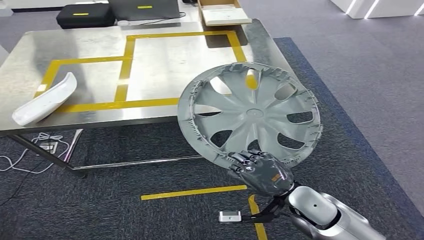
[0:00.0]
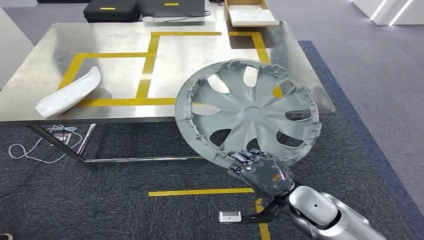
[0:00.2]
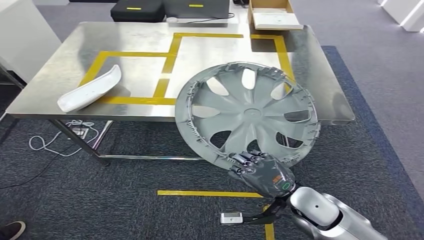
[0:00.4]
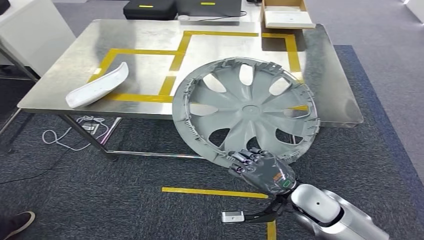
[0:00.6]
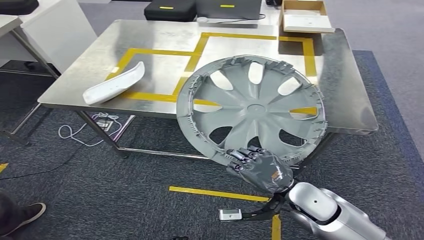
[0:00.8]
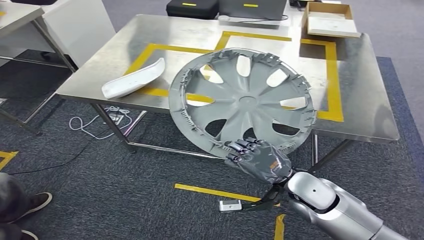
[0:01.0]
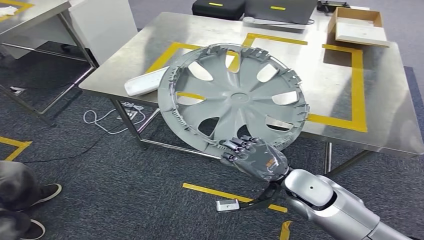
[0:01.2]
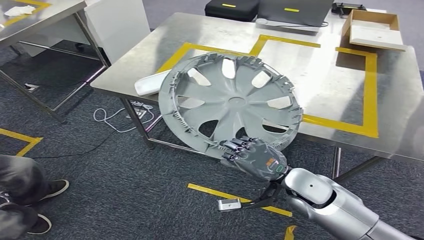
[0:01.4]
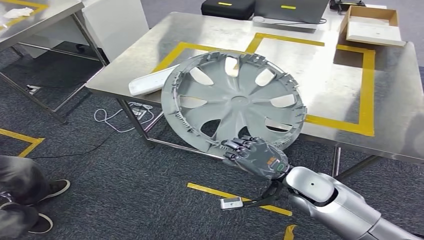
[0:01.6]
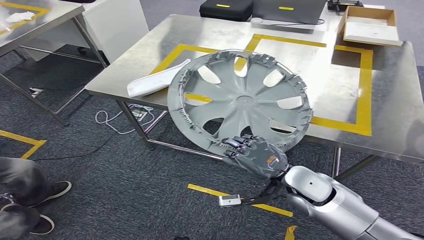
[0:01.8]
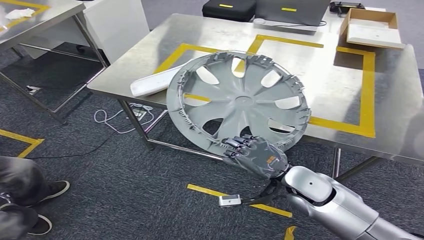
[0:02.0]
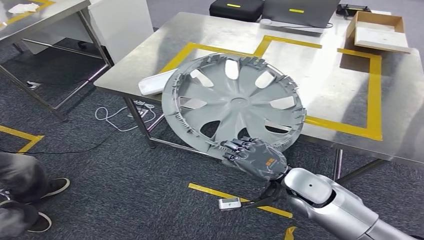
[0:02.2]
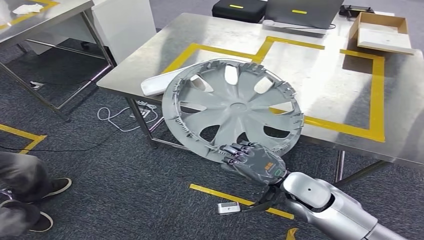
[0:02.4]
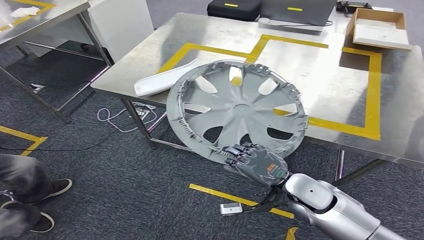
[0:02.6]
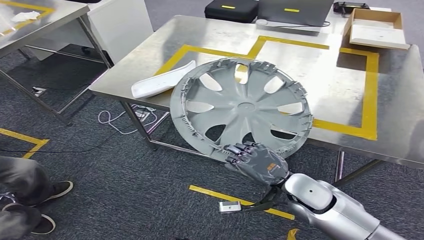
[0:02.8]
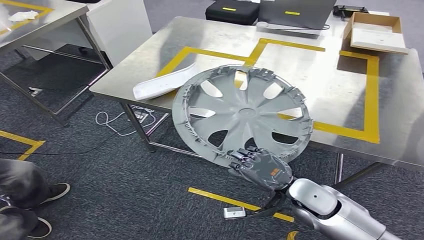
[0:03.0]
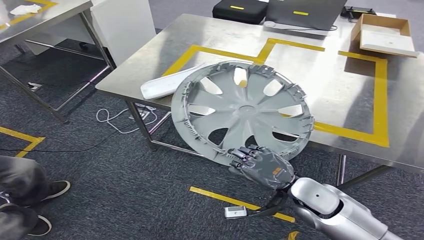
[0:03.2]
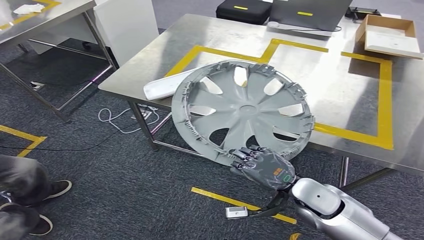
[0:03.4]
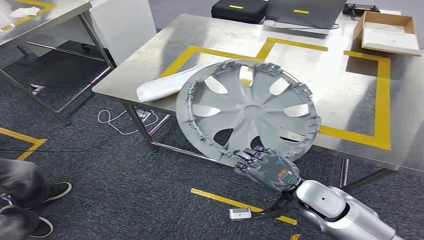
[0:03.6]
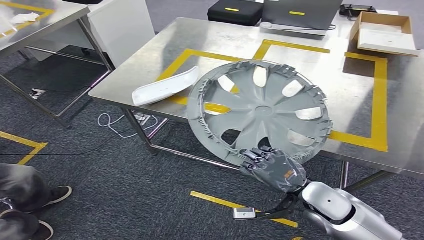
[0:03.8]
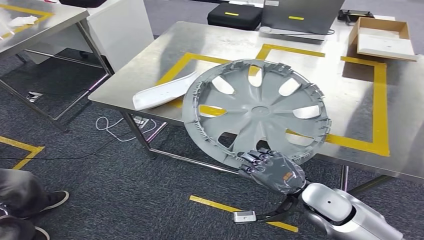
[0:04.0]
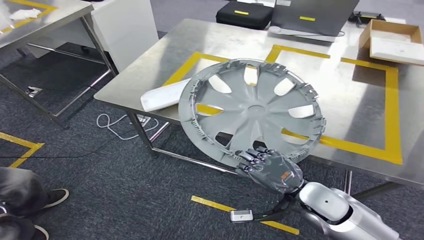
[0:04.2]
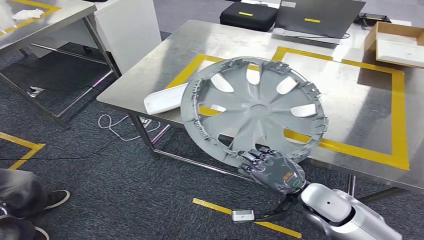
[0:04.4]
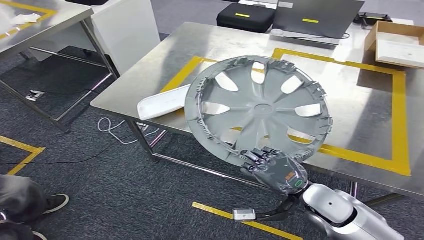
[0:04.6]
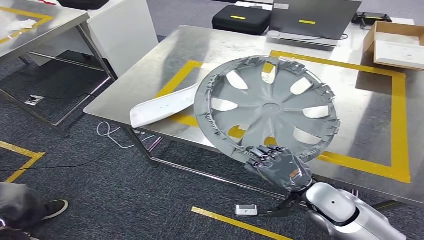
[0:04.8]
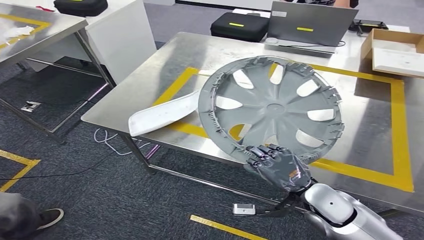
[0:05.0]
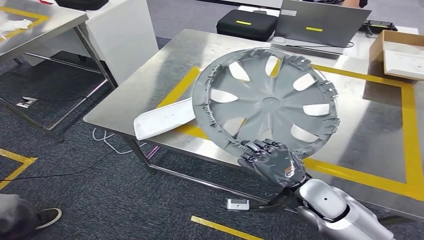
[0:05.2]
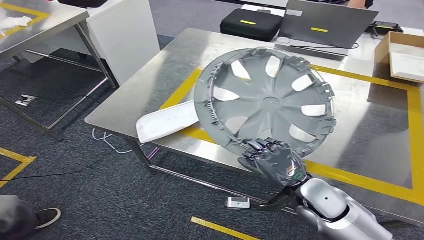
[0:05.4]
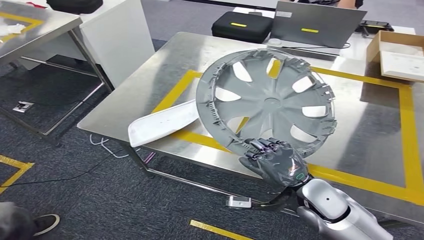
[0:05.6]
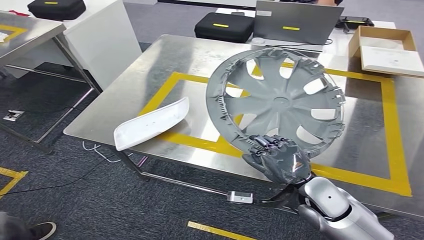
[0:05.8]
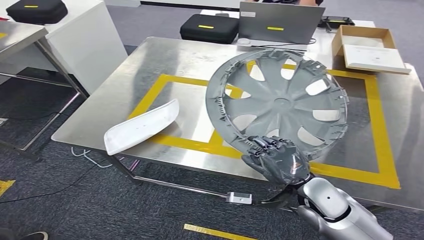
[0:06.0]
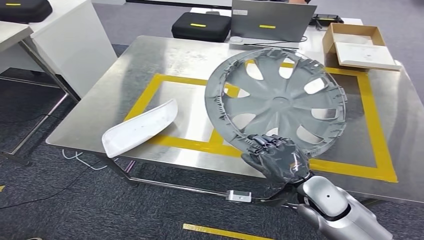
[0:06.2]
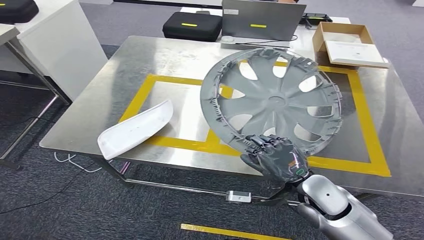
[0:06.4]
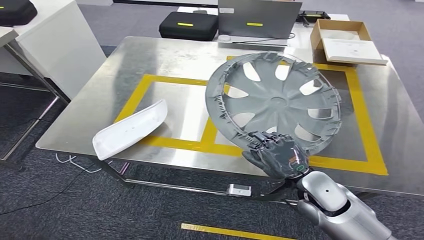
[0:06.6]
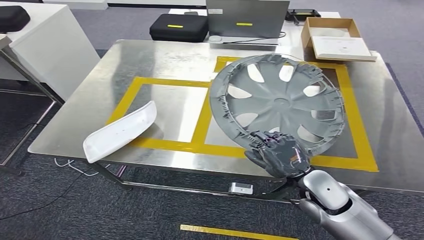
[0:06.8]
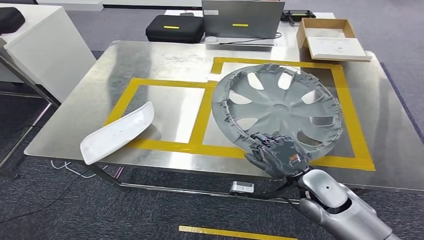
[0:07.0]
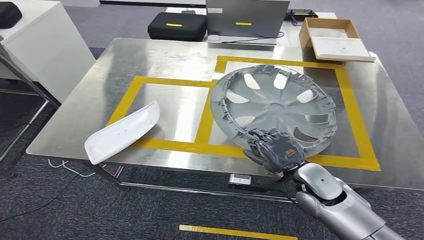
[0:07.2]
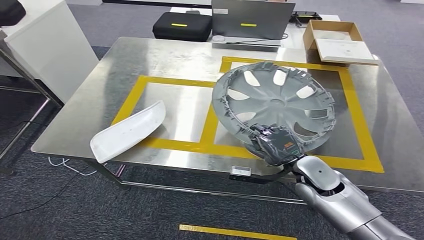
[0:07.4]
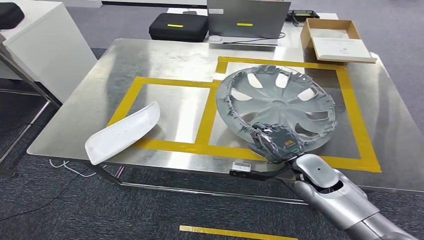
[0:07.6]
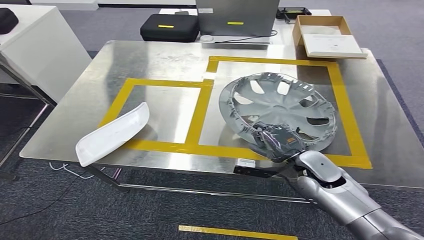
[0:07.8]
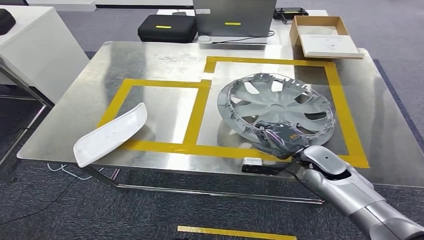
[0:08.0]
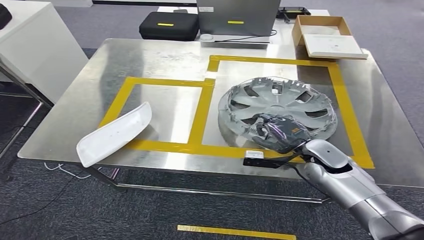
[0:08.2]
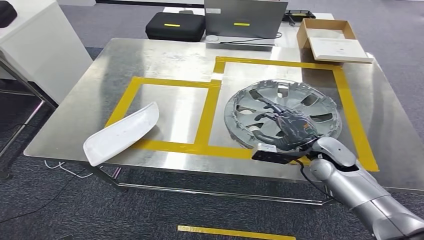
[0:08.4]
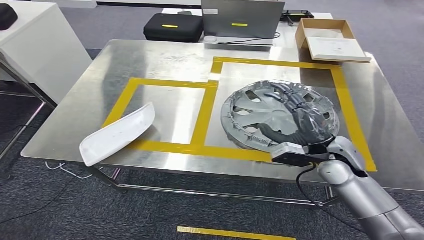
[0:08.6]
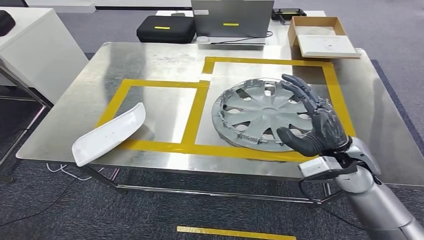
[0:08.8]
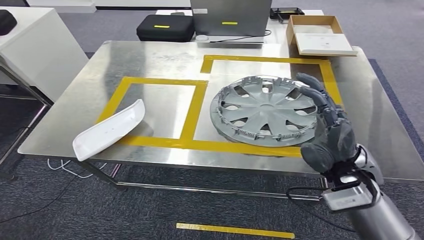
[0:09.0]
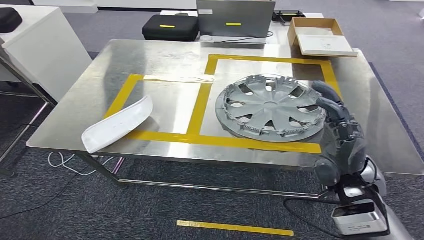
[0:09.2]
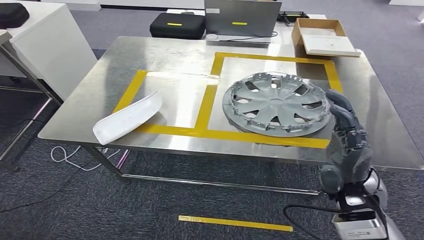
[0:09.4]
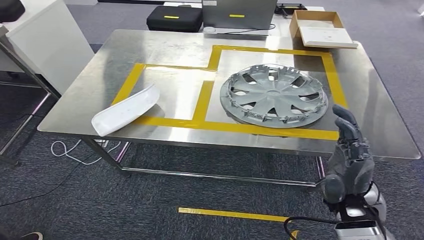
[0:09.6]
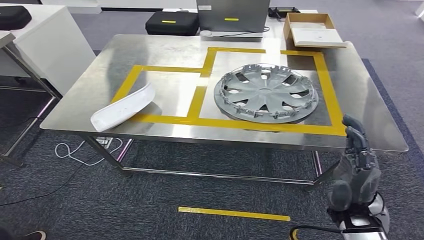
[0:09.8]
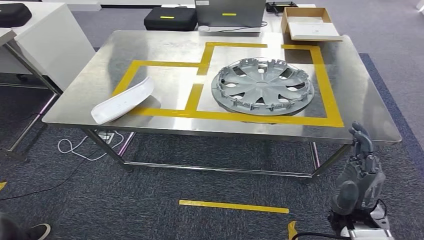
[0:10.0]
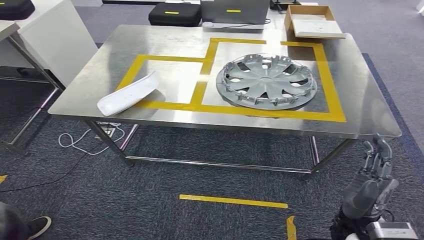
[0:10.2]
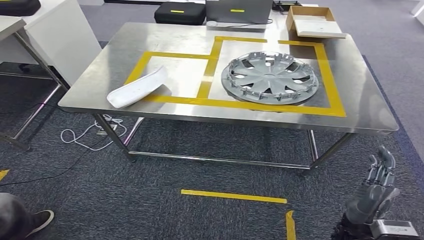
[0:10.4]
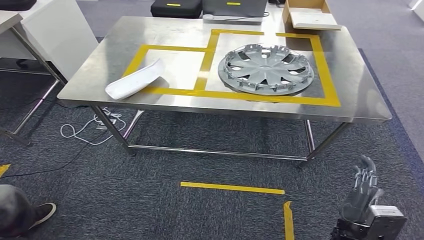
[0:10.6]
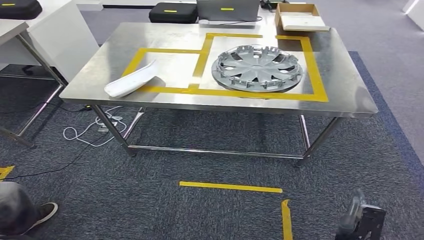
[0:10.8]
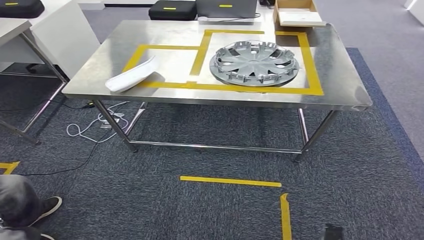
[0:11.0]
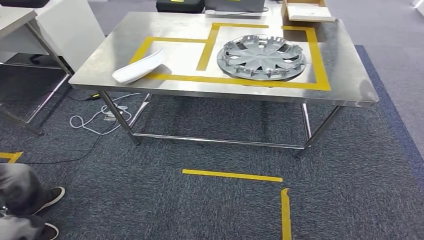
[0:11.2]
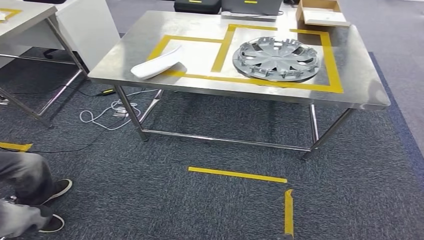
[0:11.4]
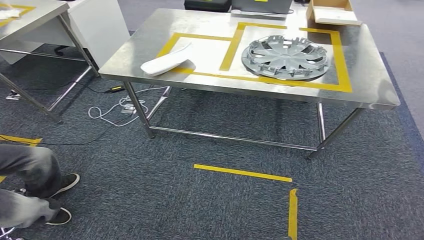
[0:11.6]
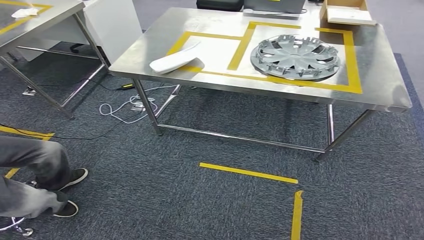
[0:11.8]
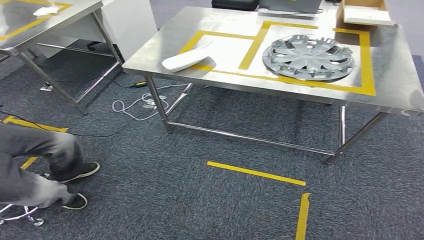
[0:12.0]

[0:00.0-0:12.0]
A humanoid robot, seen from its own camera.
Step, 0:00.4 to 0:09.8: Insert the small parts into the corresponding slots on the workbench.

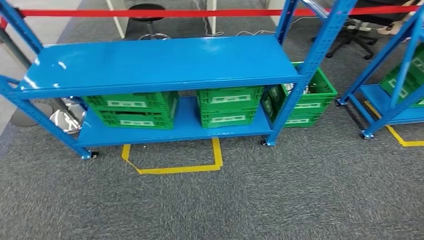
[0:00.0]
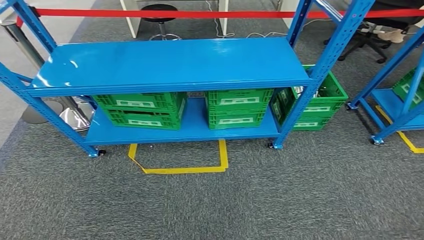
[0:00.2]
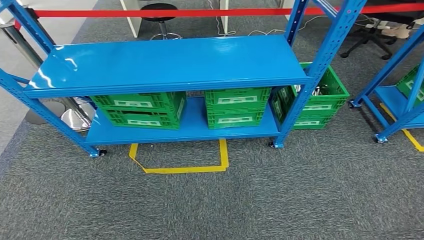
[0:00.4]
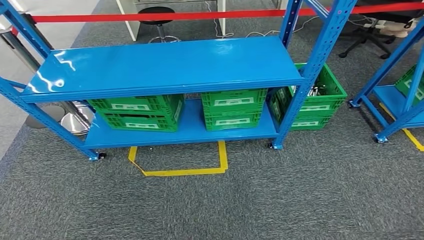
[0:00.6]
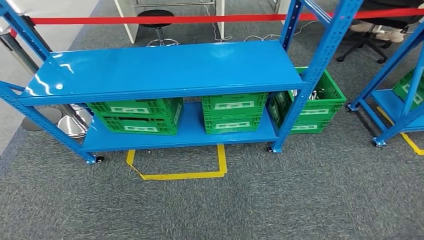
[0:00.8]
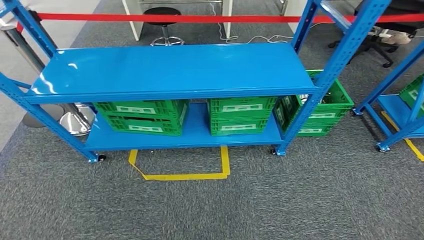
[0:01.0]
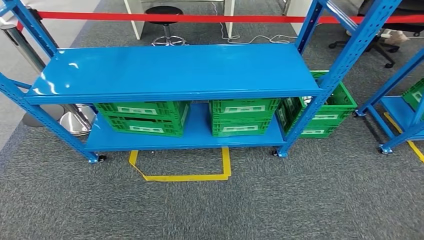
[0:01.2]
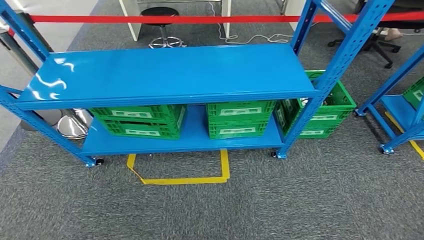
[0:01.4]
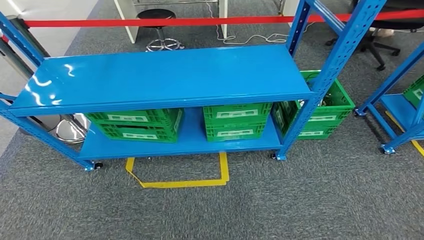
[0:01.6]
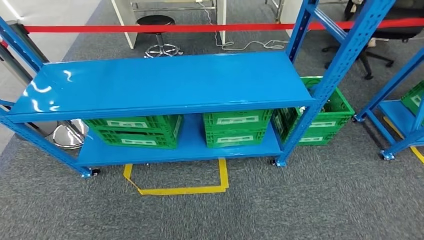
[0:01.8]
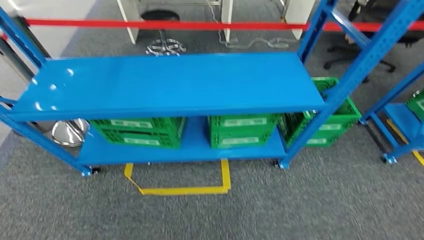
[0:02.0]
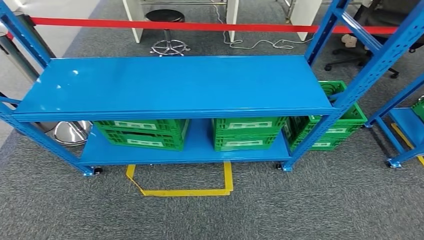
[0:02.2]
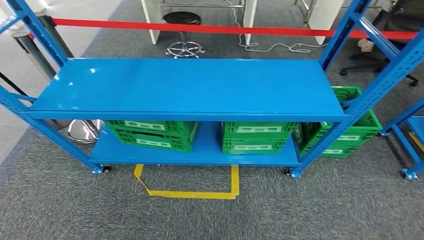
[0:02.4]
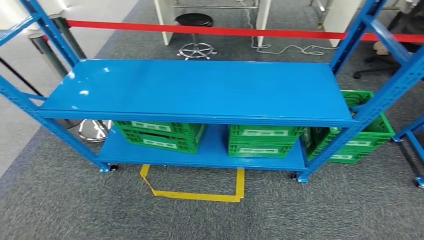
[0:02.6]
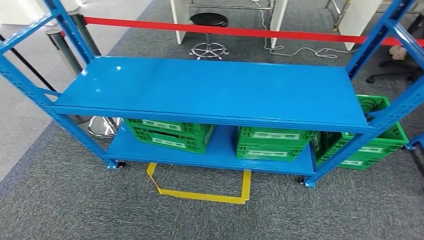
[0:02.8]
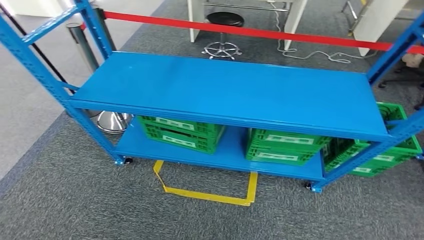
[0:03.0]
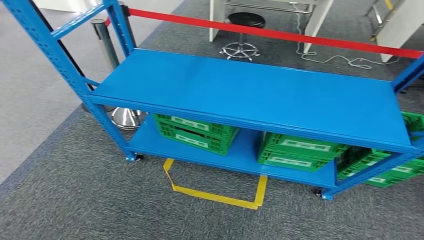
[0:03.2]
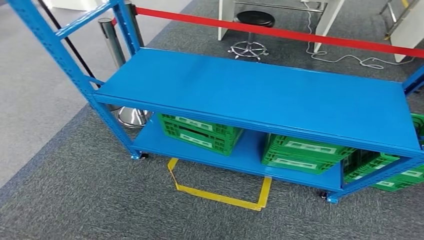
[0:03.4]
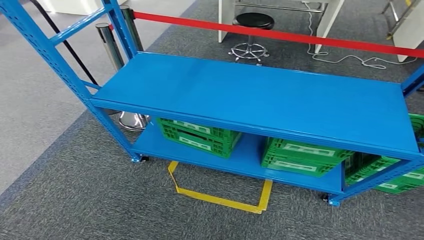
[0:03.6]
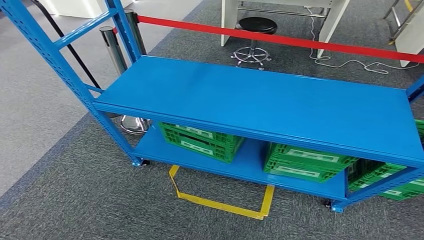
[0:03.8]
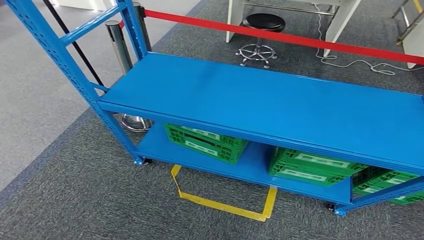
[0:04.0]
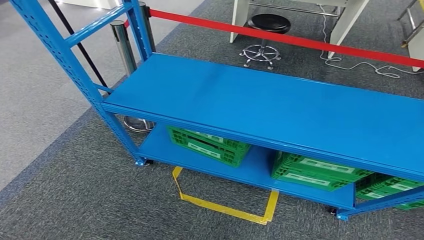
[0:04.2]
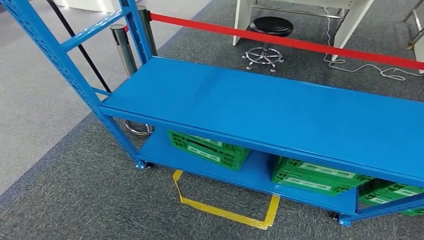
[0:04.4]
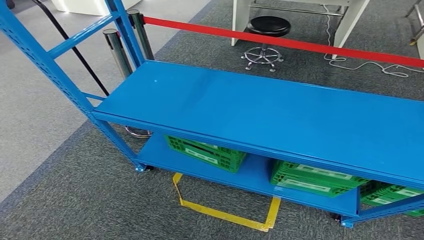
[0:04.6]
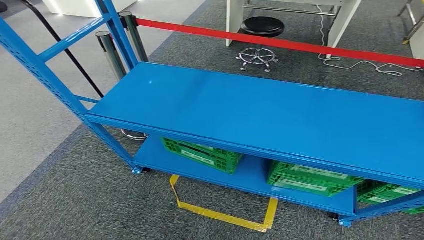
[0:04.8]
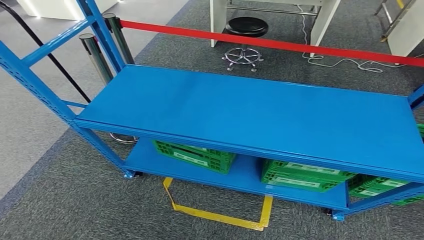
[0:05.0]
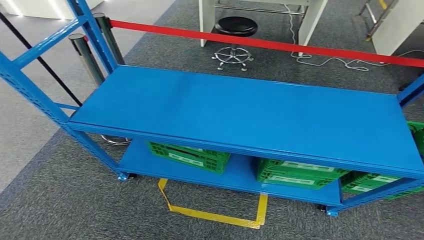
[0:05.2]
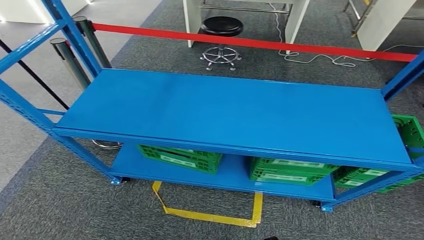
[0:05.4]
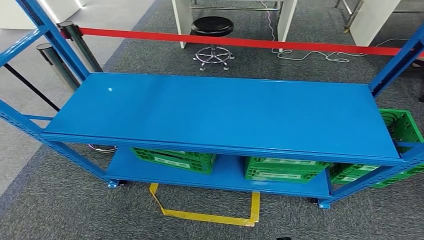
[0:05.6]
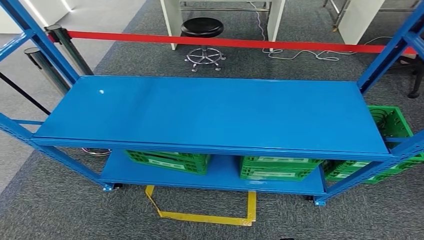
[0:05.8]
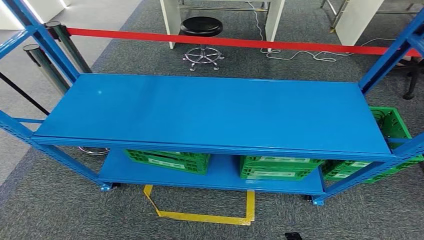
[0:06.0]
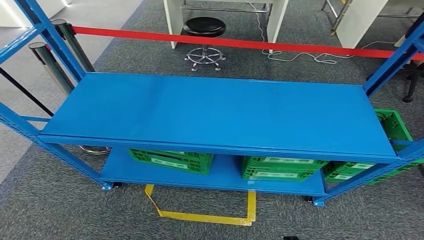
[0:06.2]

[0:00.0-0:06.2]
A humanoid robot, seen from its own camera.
Step, 0:00.0 to 0:06.2: Return to the initial position at the workbench.
